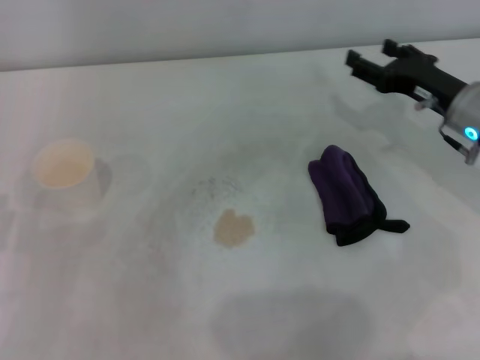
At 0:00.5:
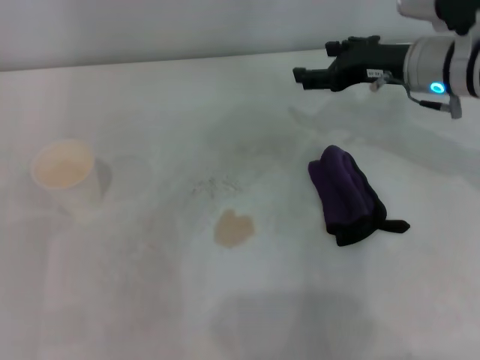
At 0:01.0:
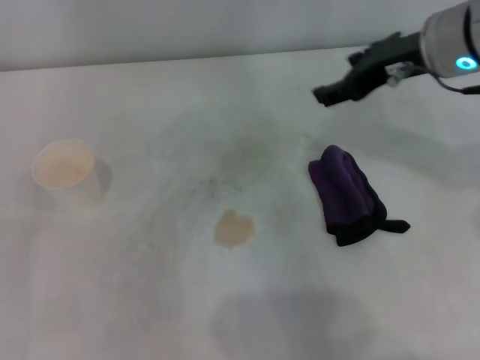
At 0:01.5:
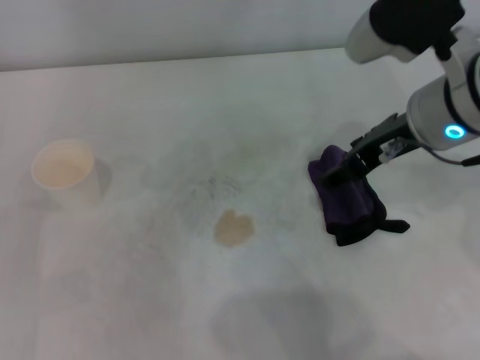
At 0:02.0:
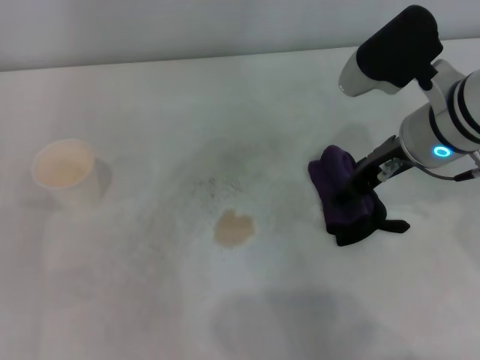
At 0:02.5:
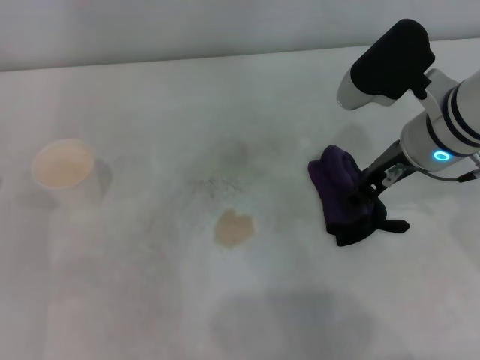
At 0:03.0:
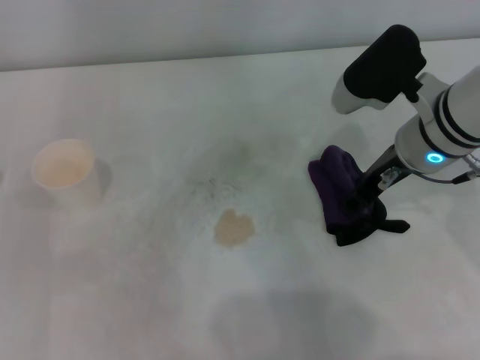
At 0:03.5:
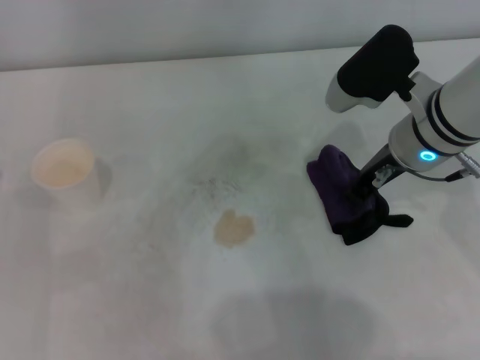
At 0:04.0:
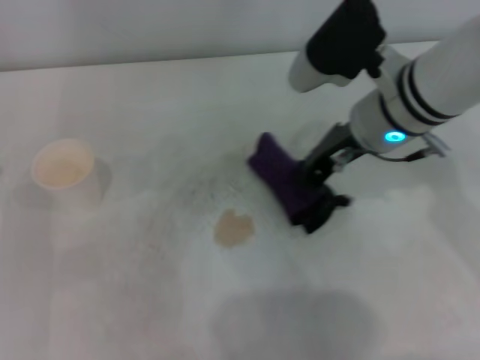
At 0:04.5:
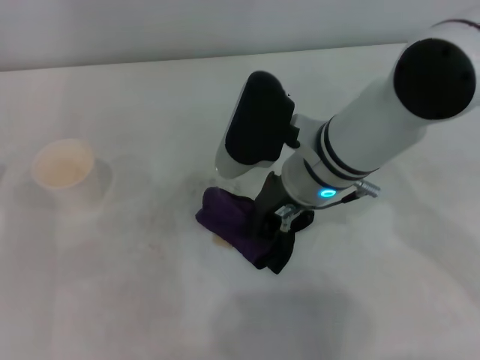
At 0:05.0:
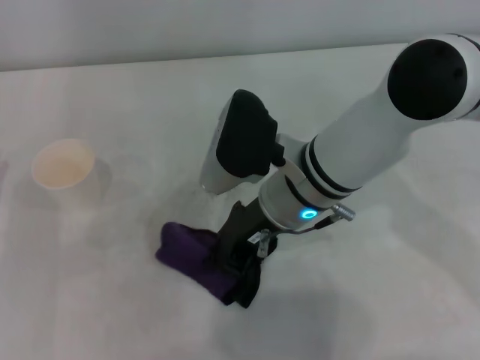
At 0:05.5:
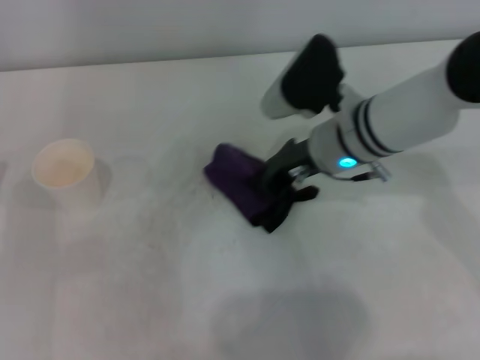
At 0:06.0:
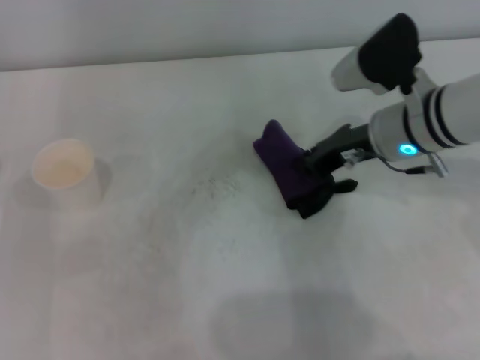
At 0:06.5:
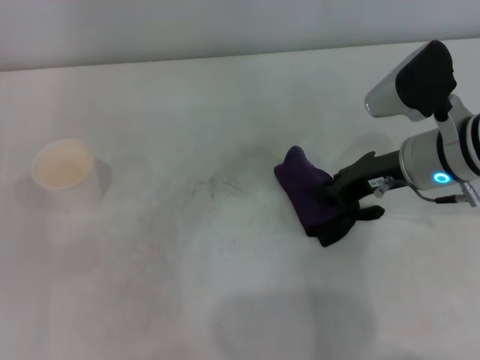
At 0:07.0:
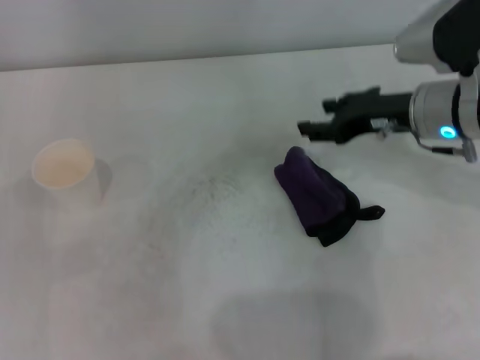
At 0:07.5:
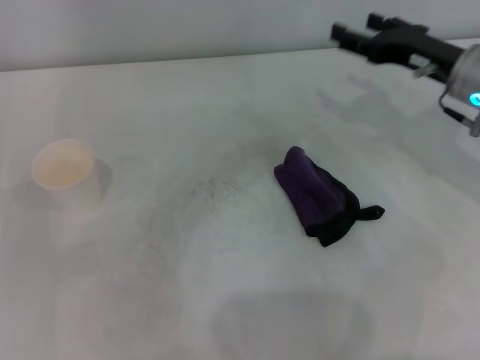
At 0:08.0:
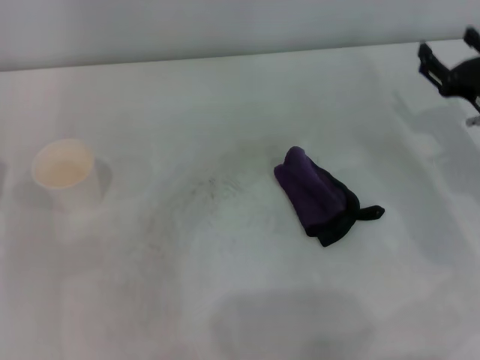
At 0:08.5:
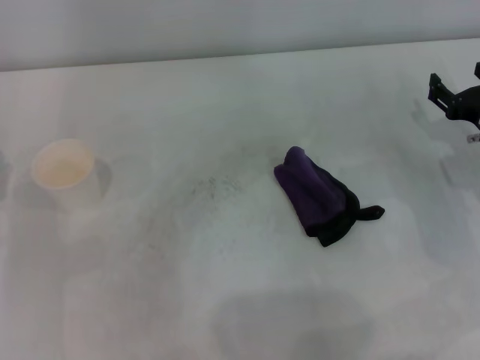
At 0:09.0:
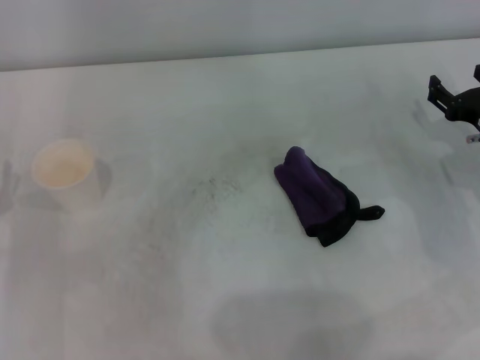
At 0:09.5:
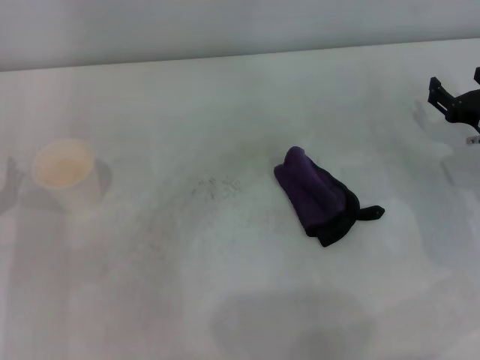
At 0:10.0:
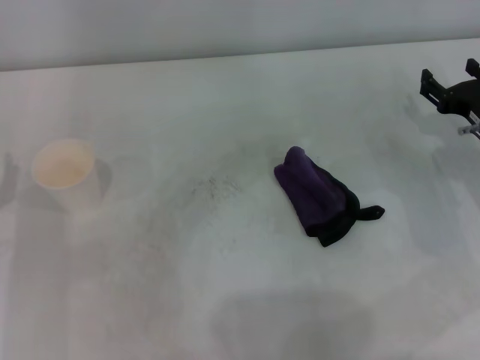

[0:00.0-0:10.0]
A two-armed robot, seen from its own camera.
Step, 0:00.0 to 0:03.5: Grasp the rag with the right gripper.
Step, 0:04.0 to 0:05.5: Wipe the stains off the table with the right gripper.
Step, 0:06.0 to 0:06.5: Place the rag on the table with the right gripper.
0:00.0 to 0:02.0: The right gripper heads to the left and upward, covering about 15 cm.
0:02.0 to 0:04.0: The right gripper closes.
0:04.0 to 0:06.0: The right gripper travels downward by about 5 cm, and reaches approximately 10 cm to the left, then returns.
0:06.0 to 0:08.0: The right gripper is displaced to the right and downward by about 15 cm, and opens up.
0:08.0 to 0:10.0: The grippers make only small movements.
